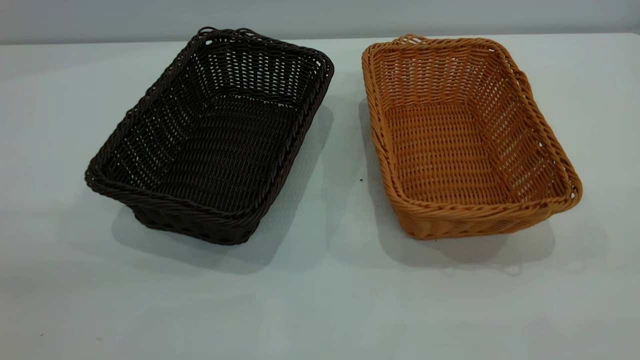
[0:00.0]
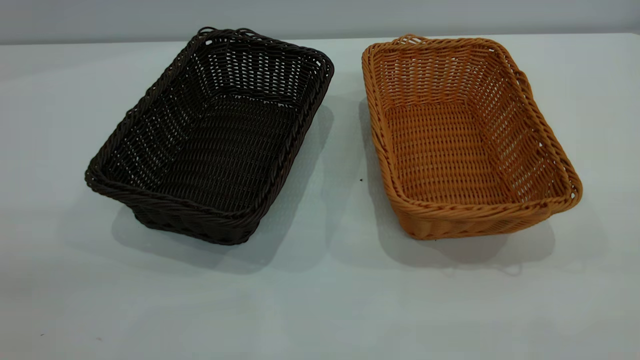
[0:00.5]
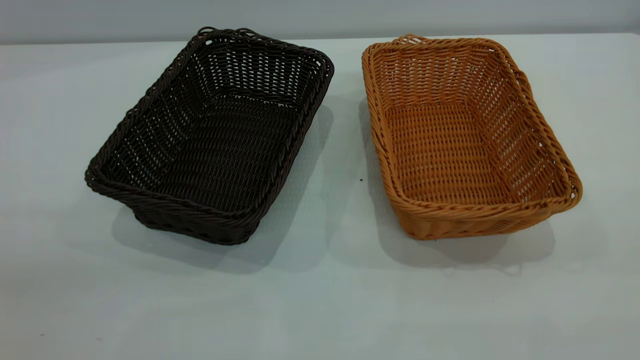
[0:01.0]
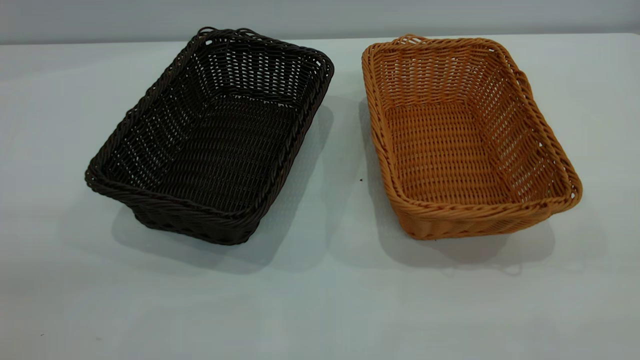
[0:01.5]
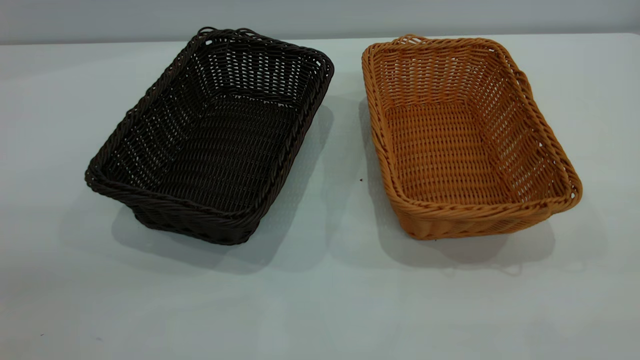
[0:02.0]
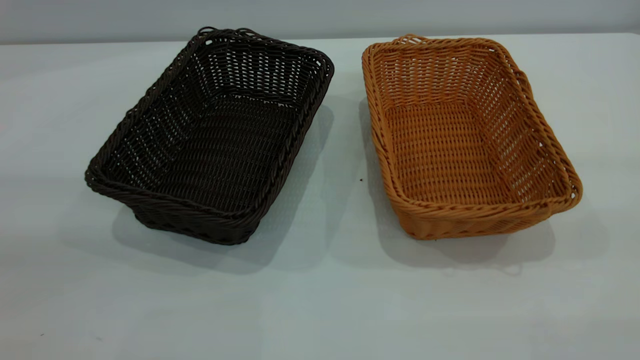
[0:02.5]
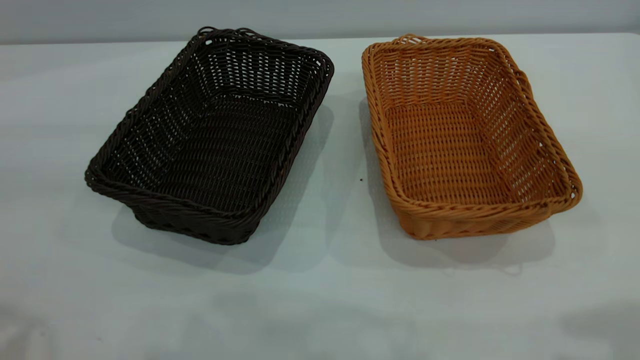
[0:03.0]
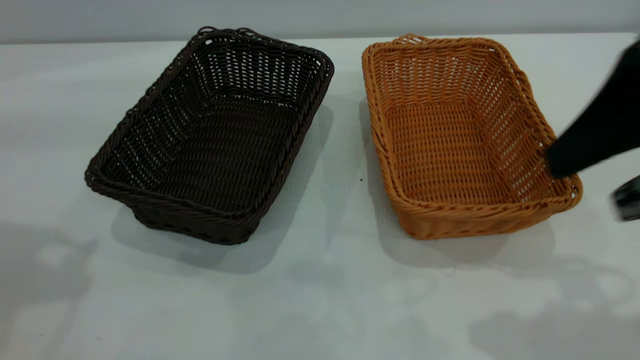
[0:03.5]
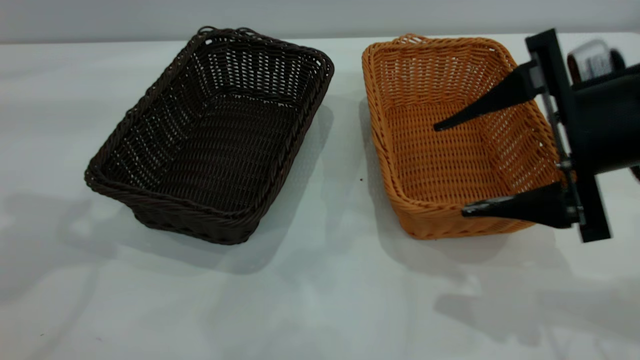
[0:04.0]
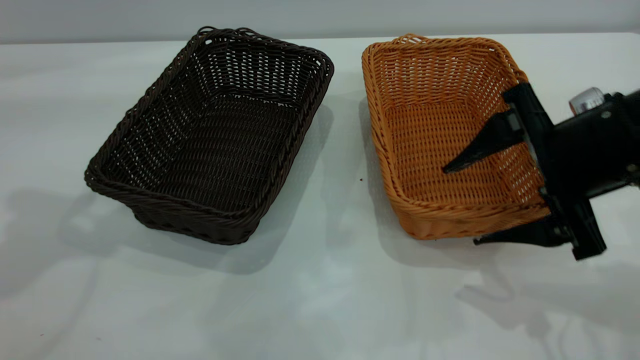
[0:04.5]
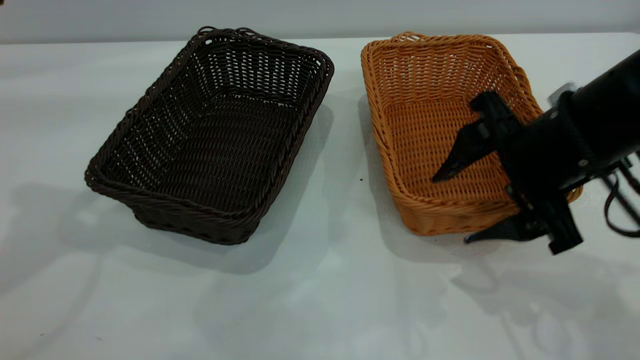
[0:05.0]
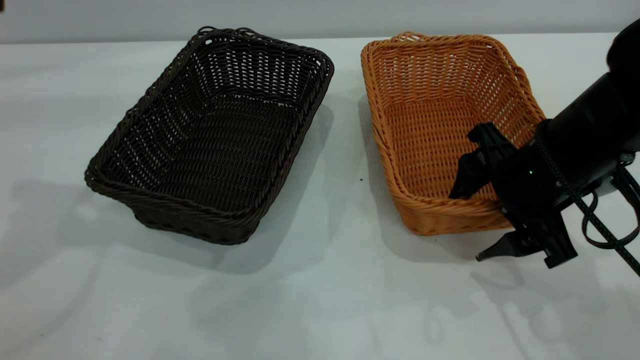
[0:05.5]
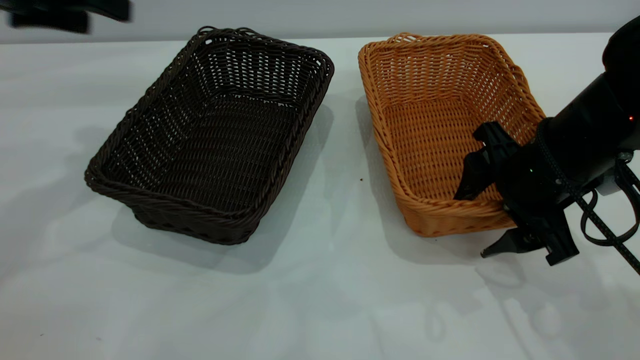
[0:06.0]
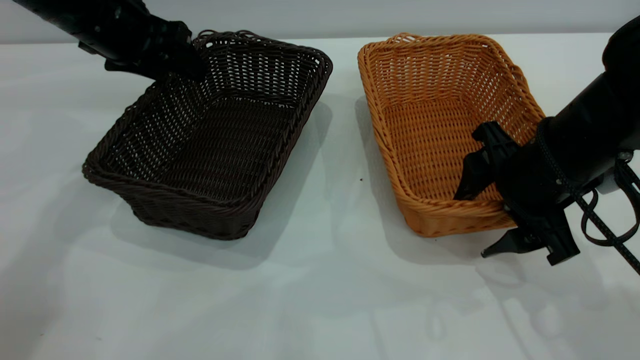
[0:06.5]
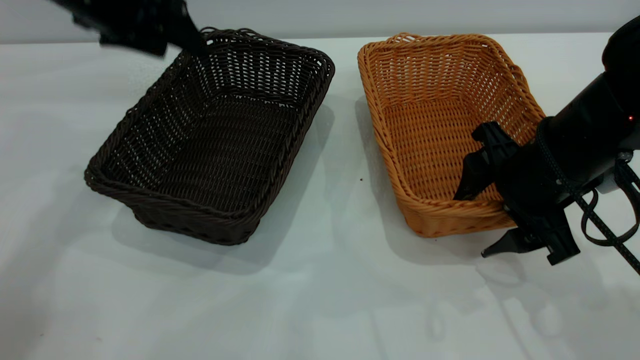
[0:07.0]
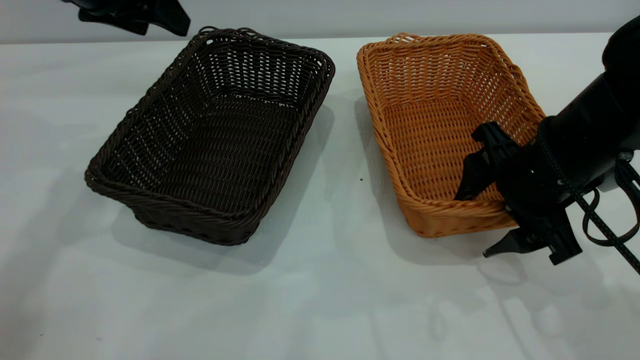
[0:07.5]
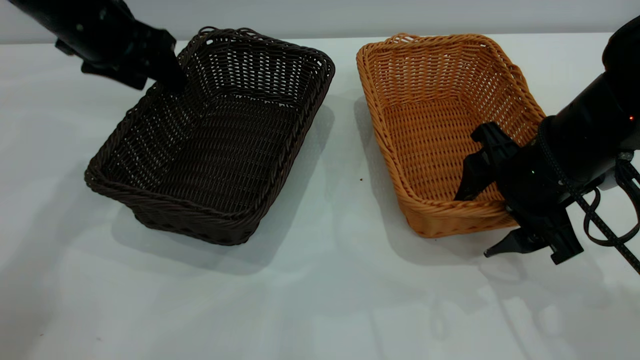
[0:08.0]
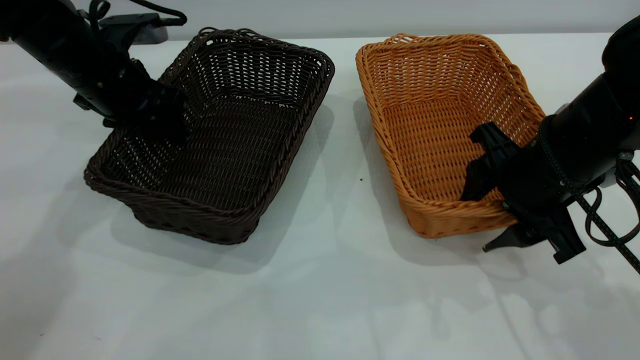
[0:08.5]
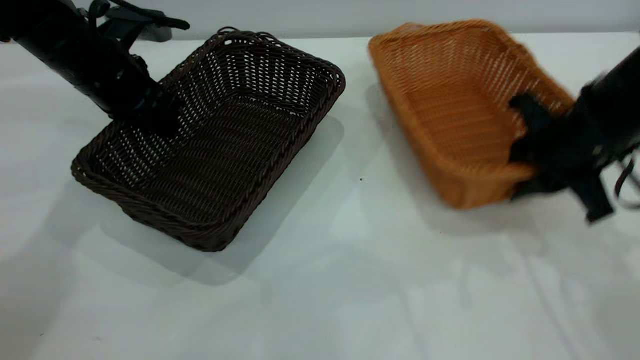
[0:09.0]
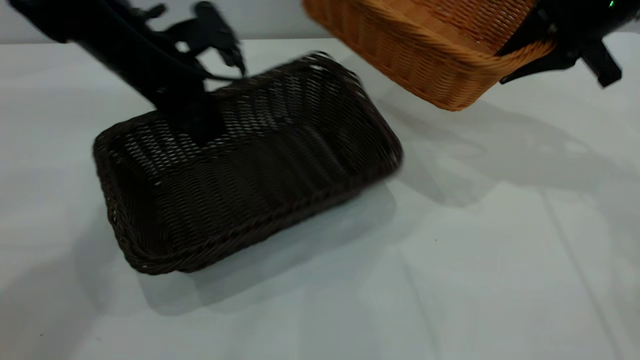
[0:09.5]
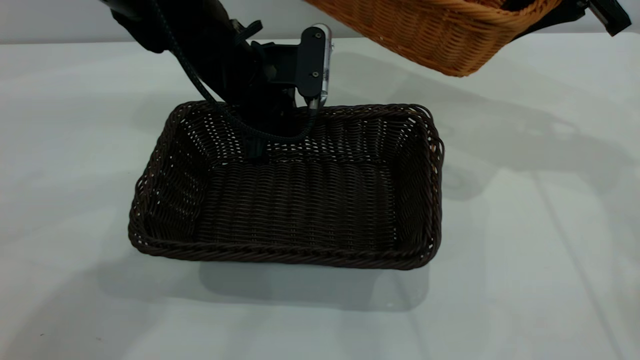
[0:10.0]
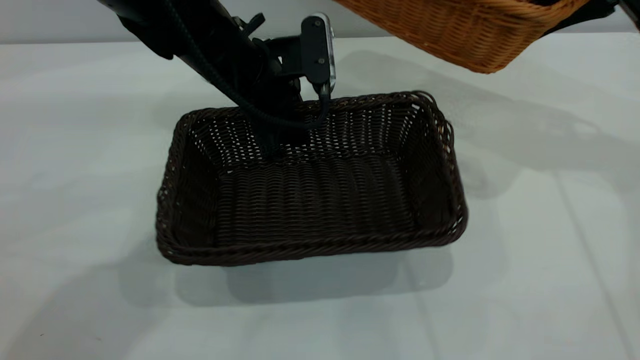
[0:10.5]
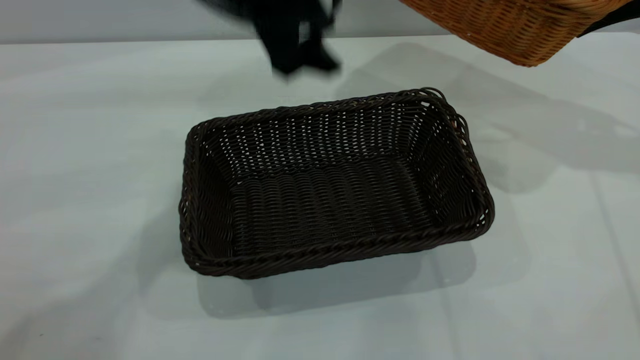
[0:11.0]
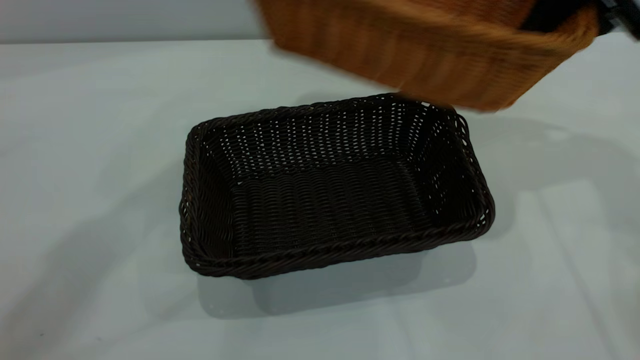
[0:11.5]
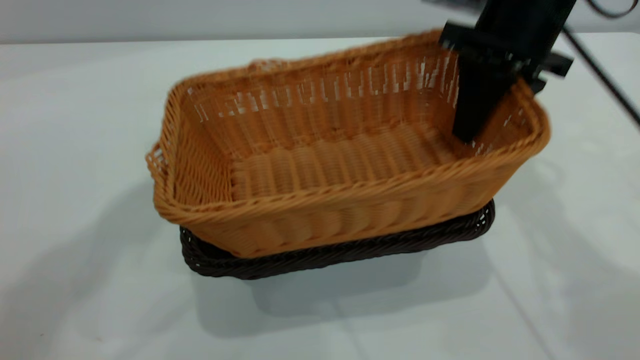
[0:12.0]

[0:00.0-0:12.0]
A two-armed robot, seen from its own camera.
Task of the whole recording: the left gripper grasp the black basket and place it in the center of the table, the right gripper grasp the brown basket and place it inside the black one.
Step, 0:00.0 to 0:09.0: Pick up the light basket with the right gripper.
Step, 0:09.5 to 0:10.5: Move the dark basket to the center of view.
0:00.0 to 0:02.0: Both grippers stay about where they are.
0:02.0 to 0:04.0: The right gripper goes about 30 cm forward and downward, and opens its fingers.
0:04.0 to 0:06.0: The left gripper travels forward and downward by roughly 15 cm. Meanwhile the right gripper moves downward, some 10 cm.
0:06.0 to 0:08.0: The left gripper swings up and down, about 5 cm each way, with 2 reversals.
0:08.0 to 0:10.0: The left gripper goes some 15 cm to the right, and closes up; the right gripper goes roughly 20 cm forward, upward and to the right, and closes.
0:10.0 to 0:12.0: The right gripper shifts some 10 cm to the left; the left gripper shifts some 40 cm upward, and opens.

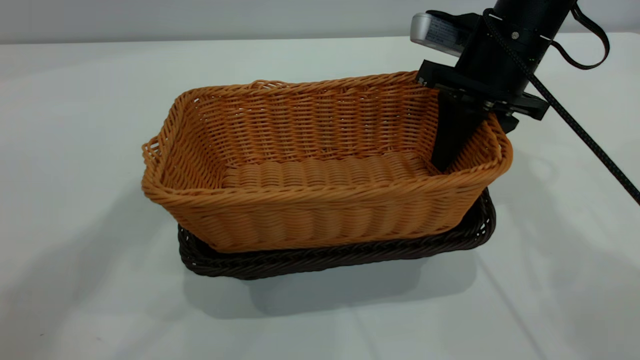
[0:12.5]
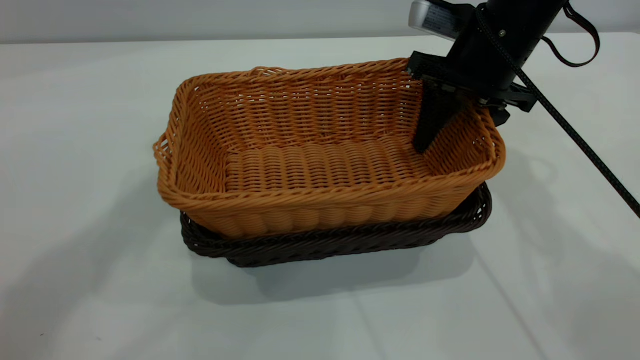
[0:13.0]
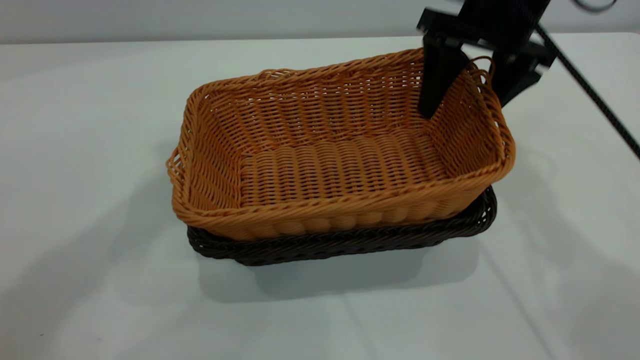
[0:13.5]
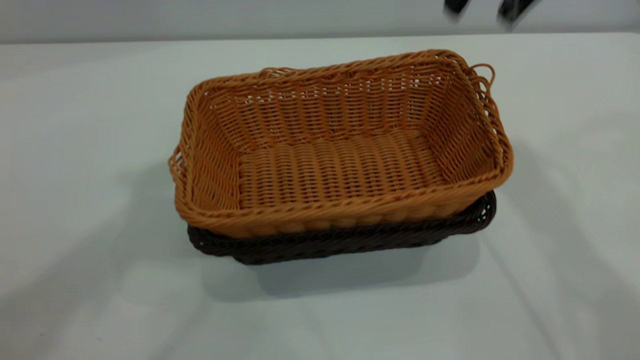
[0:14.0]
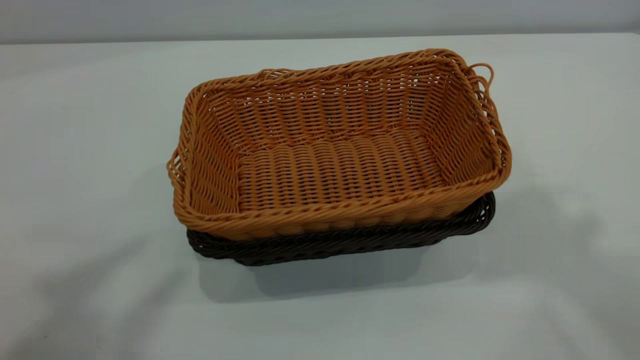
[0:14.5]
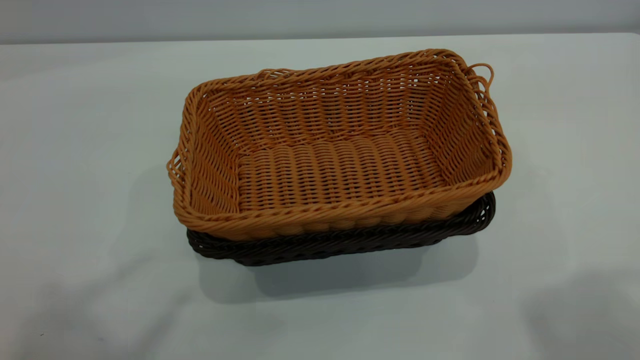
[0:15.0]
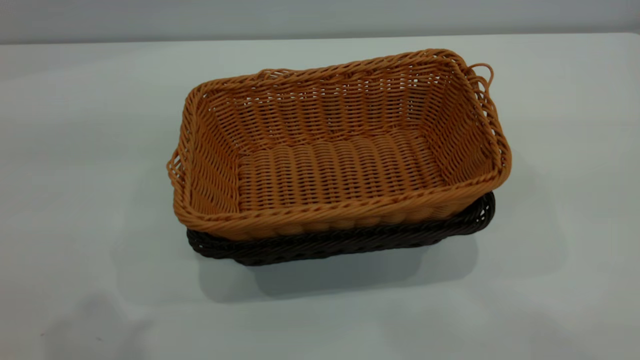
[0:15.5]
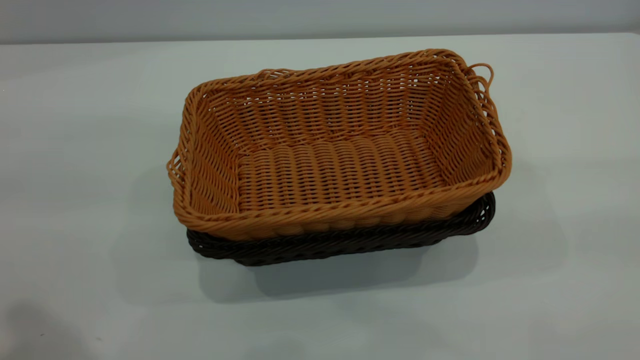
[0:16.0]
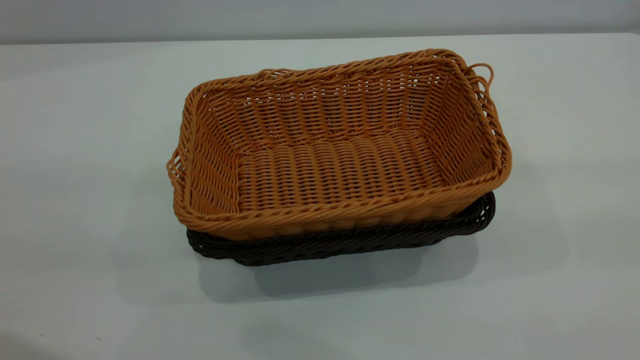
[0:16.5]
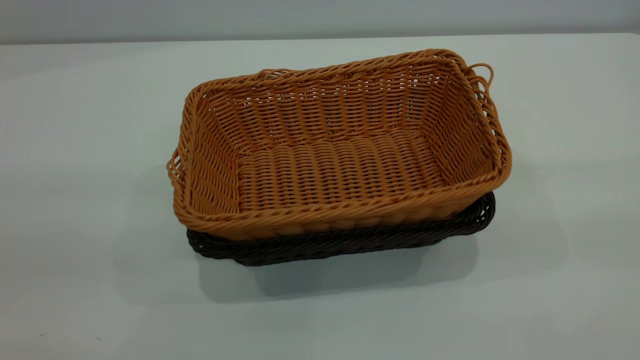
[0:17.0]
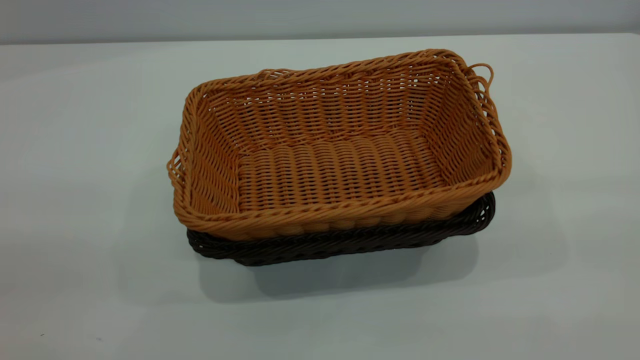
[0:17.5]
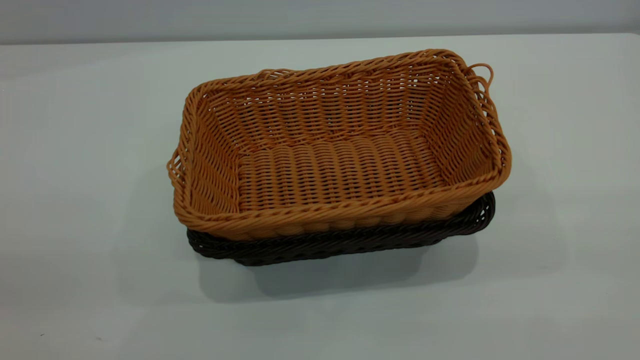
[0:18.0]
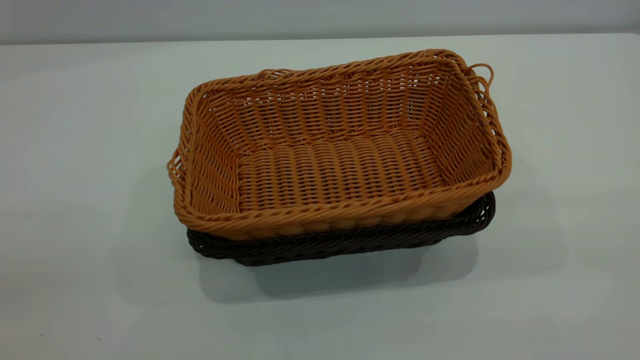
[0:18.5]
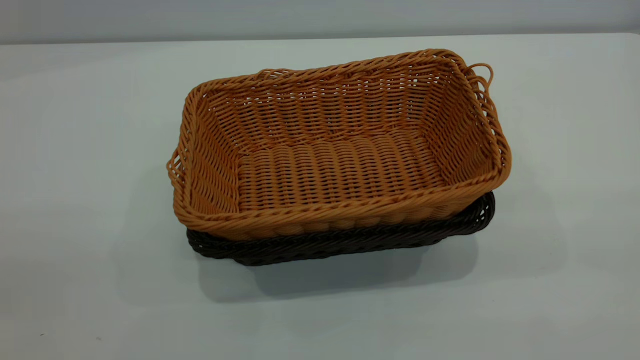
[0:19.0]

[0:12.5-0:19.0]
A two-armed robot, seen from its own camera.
Task of the whole recording: the left gripper grasp the black basket and place it in the center of the table, the right gripper grasp the brown basket and place it inside the black one.
0:12.5 to 0:14.5: The left gripper moves backward, roughly 15 cm. The right gripper is displaced upward by about 40 cm, and opens.
0:14.5 to 0:17.0: The left gripper moves downward and backward, some 20 cm.
